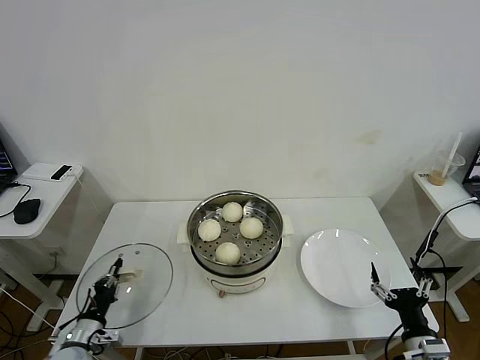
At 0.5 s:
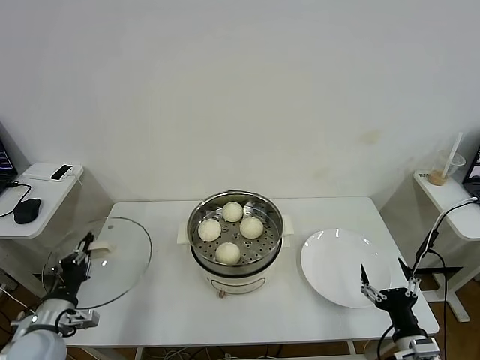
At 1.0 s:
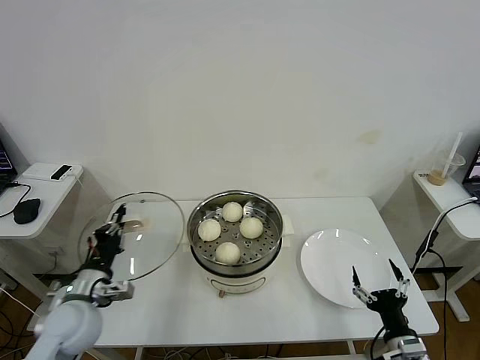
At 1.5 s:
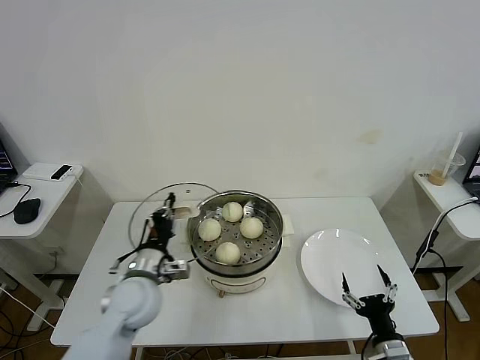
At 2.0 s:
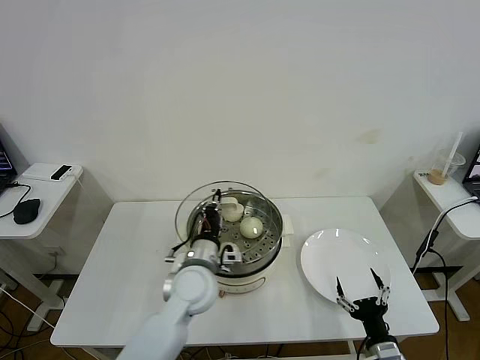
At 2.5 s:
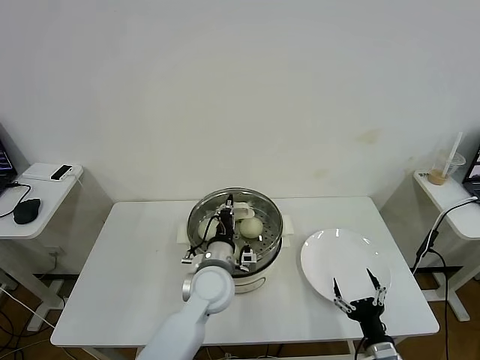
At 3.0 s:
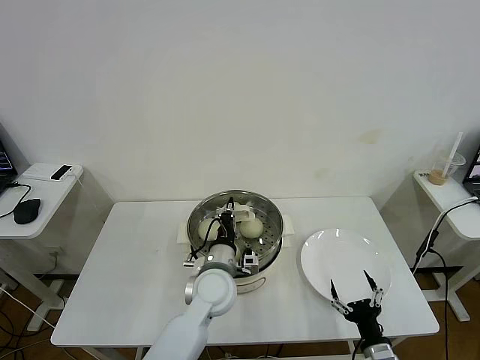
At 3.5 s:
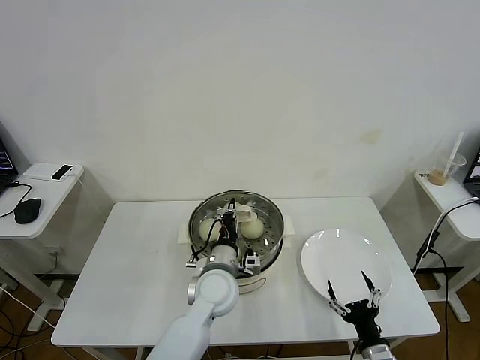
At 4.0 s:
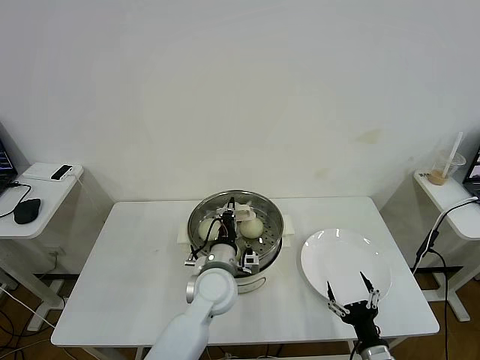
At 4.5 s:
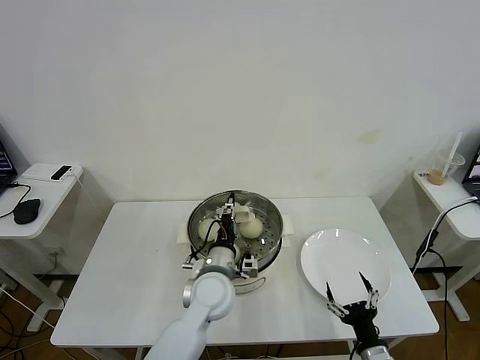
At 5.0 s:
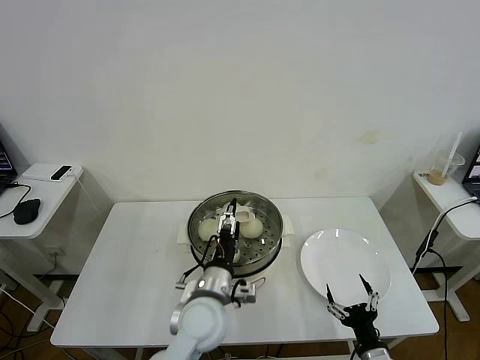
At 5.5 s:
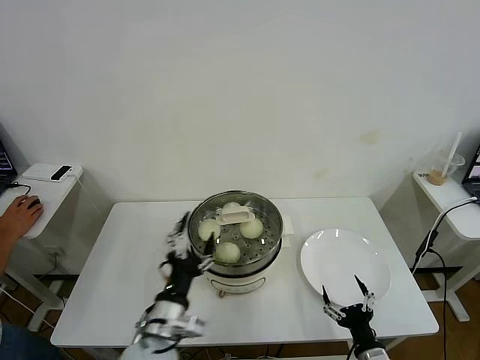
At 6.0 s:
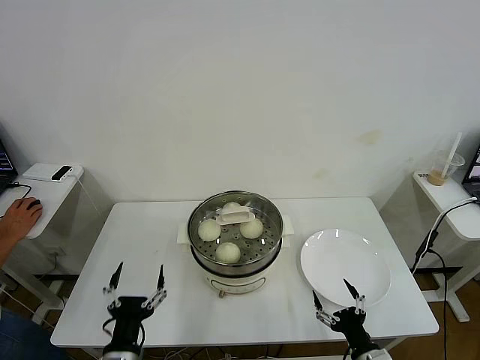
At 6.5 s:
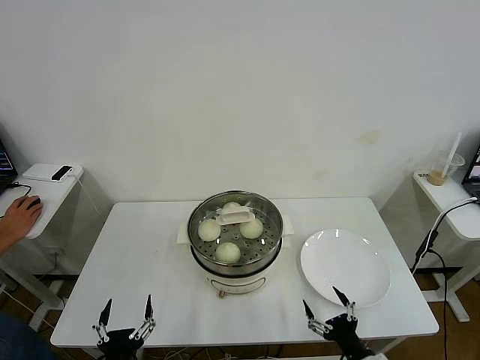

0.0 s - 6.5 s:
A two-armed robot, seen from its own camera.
Task of the whole recording: take steamed baozi put them in steamer then cover it.
Step, 0.0 s - 5.0 s: Place the pot lid on the steamer with left gripper.
0.0 s - 2.0 s: The right gripper heads to the left, covering roughly 5 cm. The left gripper moves to the right, upward and forward, roughly 35 cm.
2.0 s - 4.5 s: The left gripper shifts by approximately 5 cm, and opens.
4.5 s - 6.5 s: The left gripper moves backward and to the left, approximately 30 cm, and opens its fingers.
